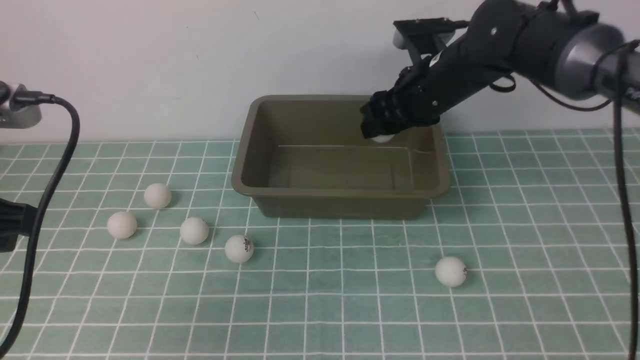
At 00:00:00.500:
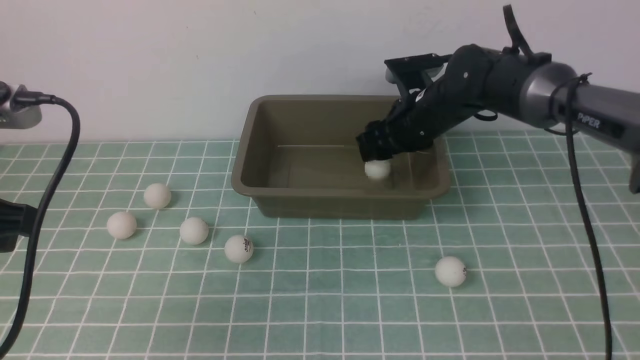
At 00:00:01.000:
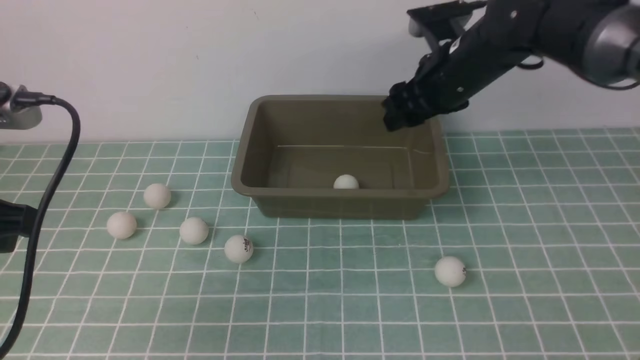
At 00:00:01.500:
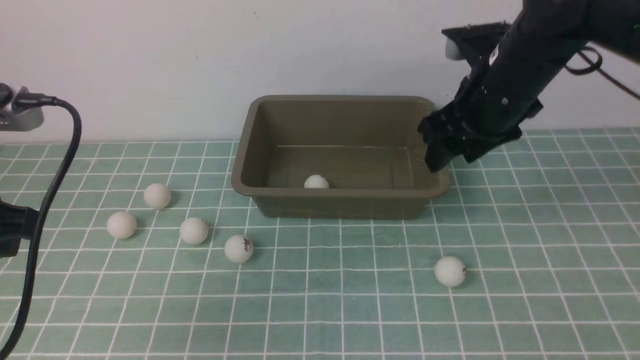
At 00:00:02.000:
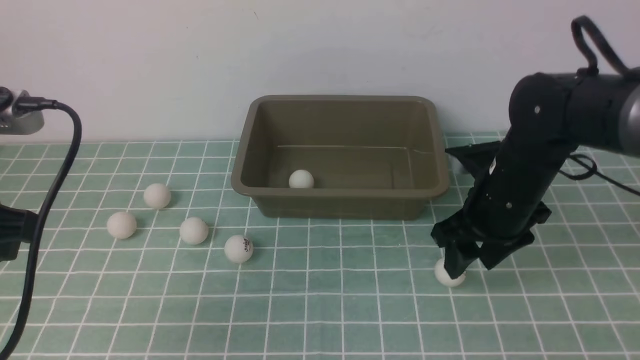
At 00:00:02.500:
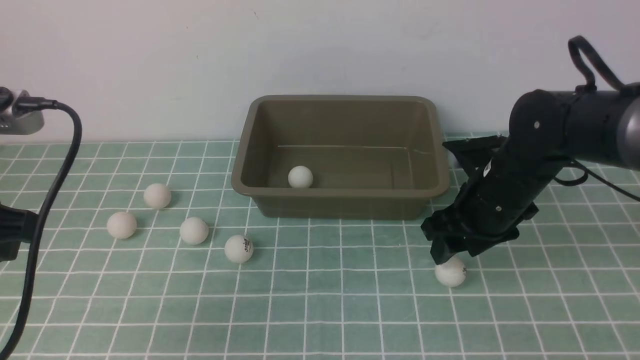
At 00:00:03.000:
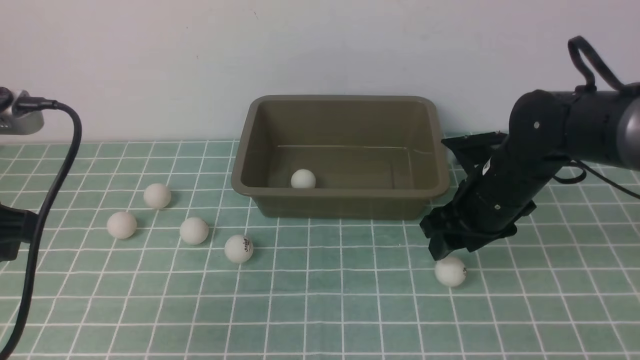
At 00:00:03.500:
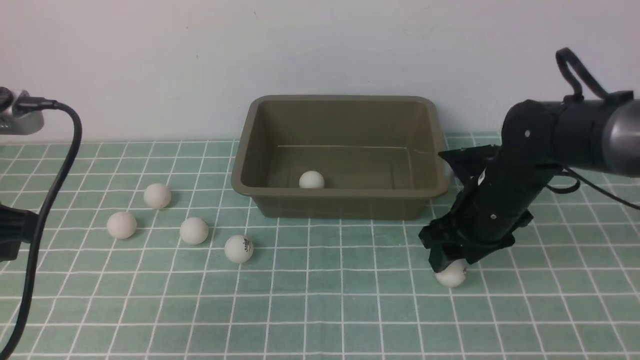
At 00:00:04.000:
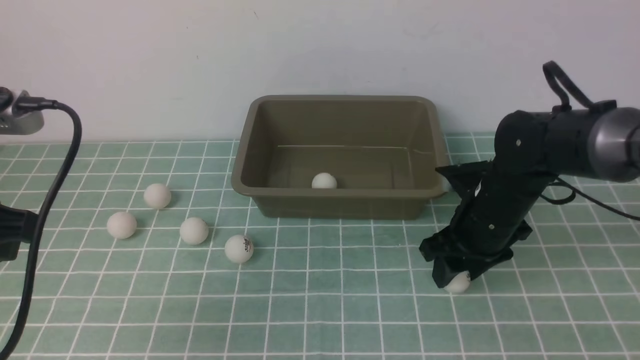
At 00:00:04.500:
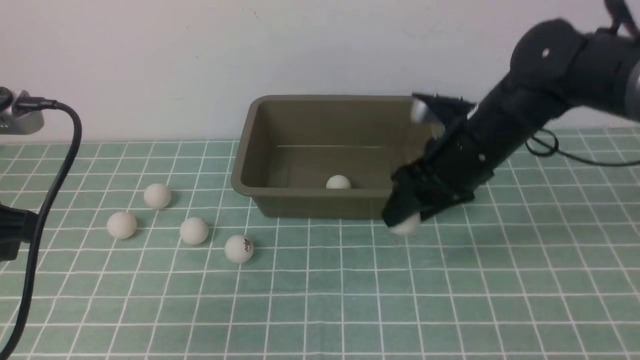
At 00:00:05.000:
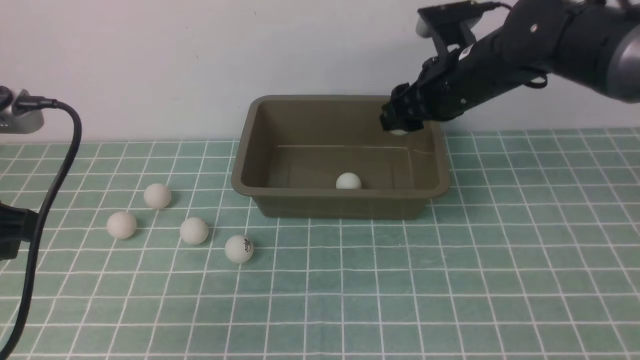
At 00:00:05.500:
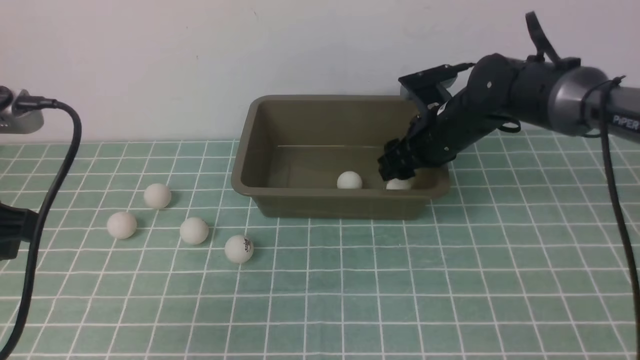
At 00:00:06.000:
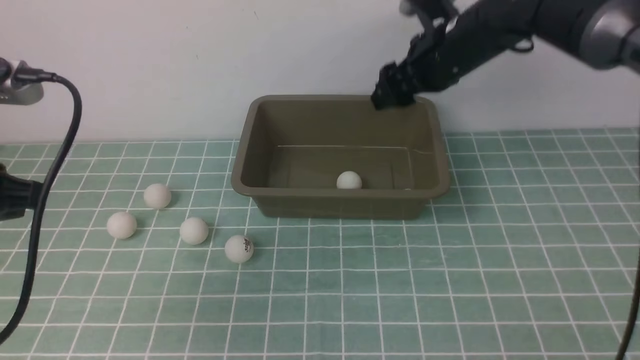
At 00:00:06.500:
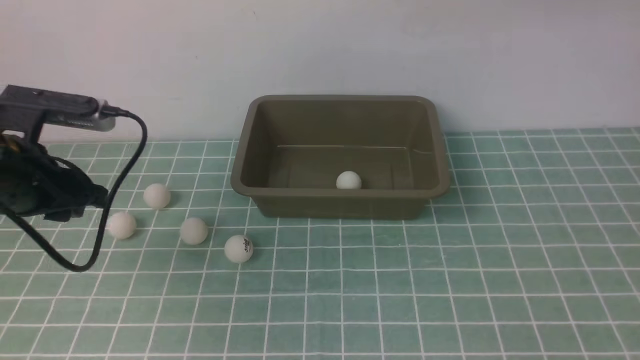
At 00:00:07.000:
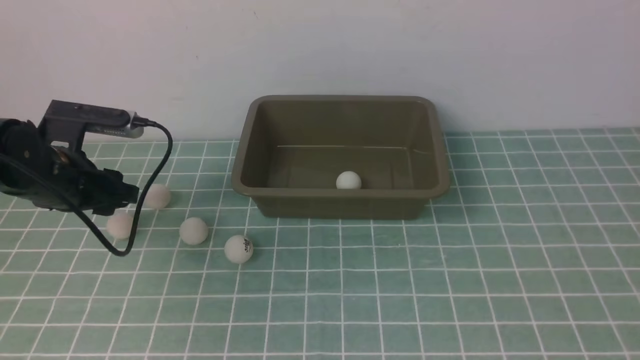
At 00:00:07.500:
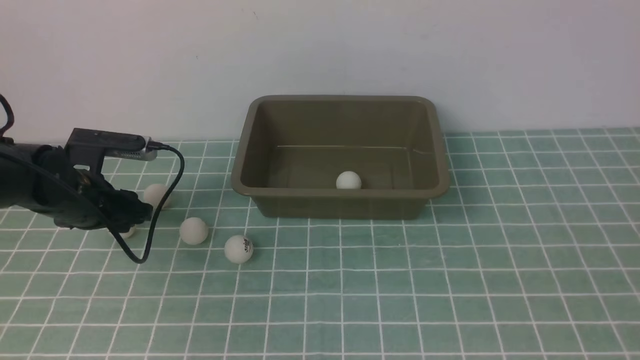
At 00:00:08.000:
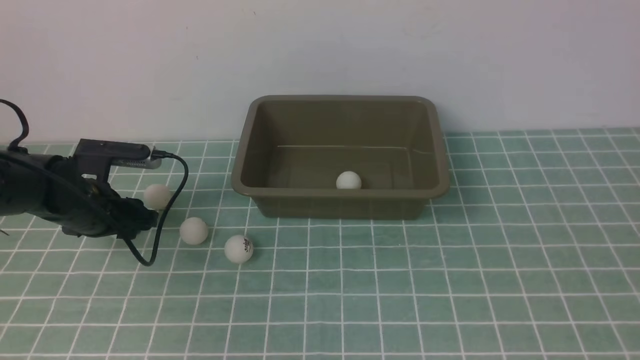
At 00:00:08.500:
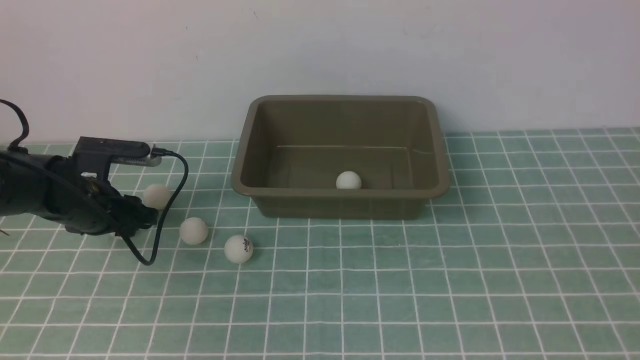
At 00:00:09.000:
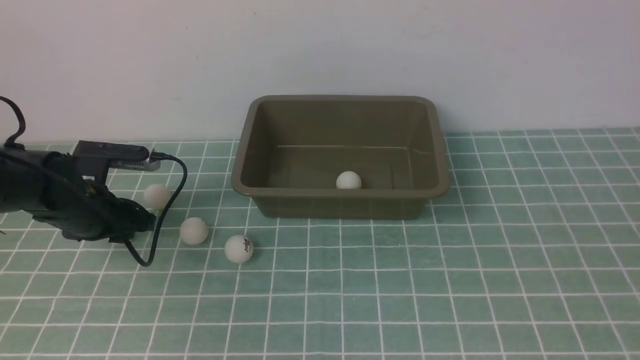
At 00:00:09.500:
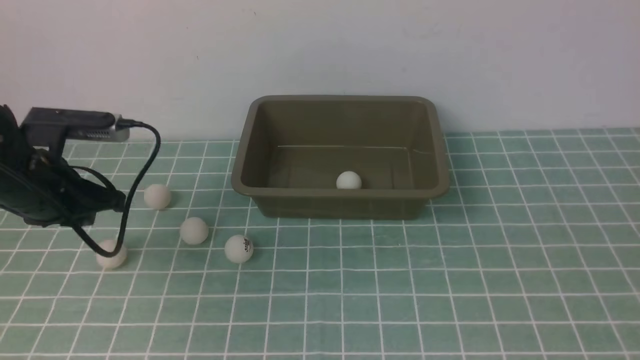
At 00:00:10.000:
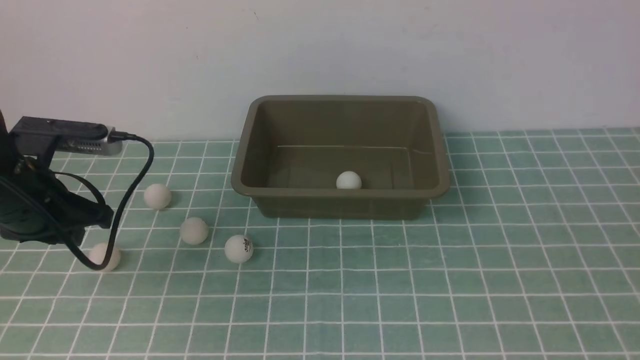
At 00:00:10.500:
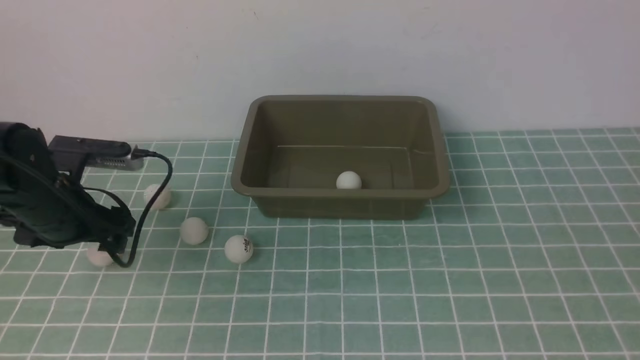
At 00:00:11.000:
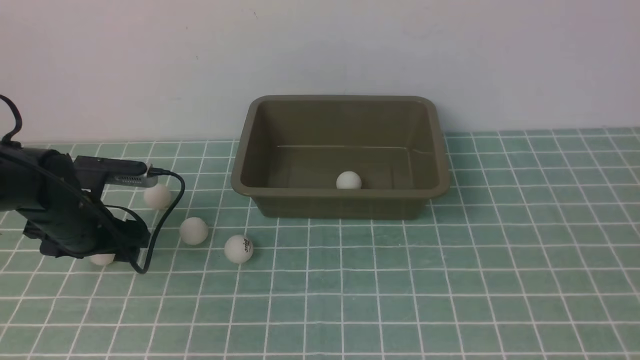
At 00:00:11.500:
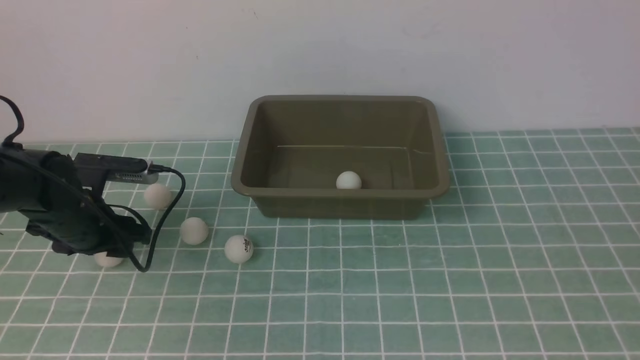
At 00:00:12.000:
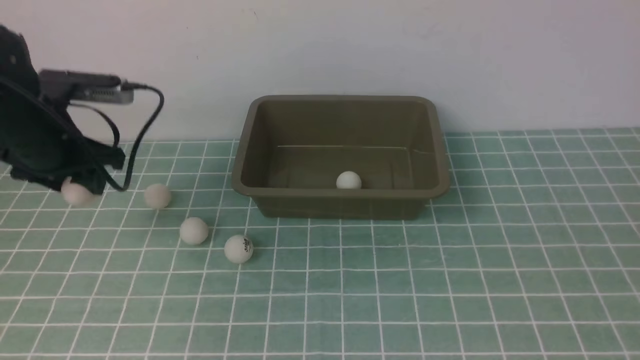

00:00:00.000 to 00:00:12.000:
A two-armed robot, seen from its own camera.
Step, 00:00:01.000 to 00:00:04.000: use the right arm to clamp the table tennis ball closest to it.
Step, 00:00:04.500 to 00:00:05.500: use the right arm to put the table tennis ball into the box.
Step, 00:00:06.000 to 00:00:11.500: use the left arm to clamp the table tennis ball closest to it.
00:00:00.000 to 00:00:02.000: The right gripper shifts roughly 15 cm backward, downward and to the right.
00:00:02.000 to 00:00:04.000: The grippers move only a little.
00:00:04.000 to 00:00:06.000: The right gripper moves up and down over approximately 25 cm, changing direction 2 times. The left gripper shifts some 10 cm forward and downward.
00:00:06.000 to 00:00:08.000: The left gripper shifts roughly 15 cm downward and forward. The right gripper travels backward by approximately 40 cm, and closes.
00:00:08.000 to 00:00:10.000: The left gripper moves upward and backward, some 10 cm, and closes, then opens again.
00:00:10.000 to 00:00:12.000: The left gripper travels to the right, forward and upward by about 15 cm.

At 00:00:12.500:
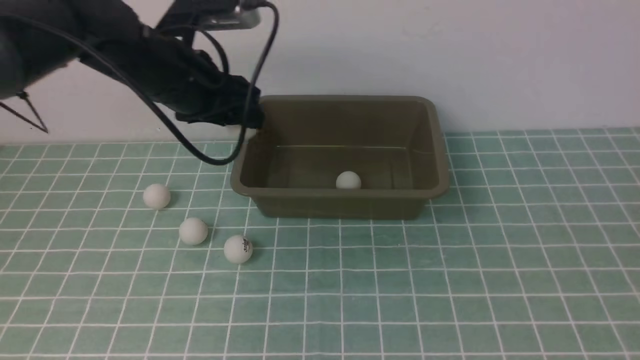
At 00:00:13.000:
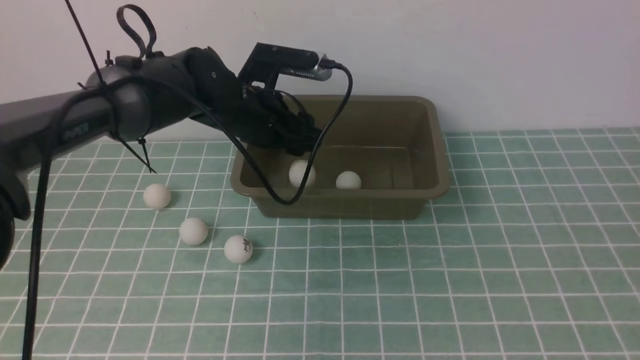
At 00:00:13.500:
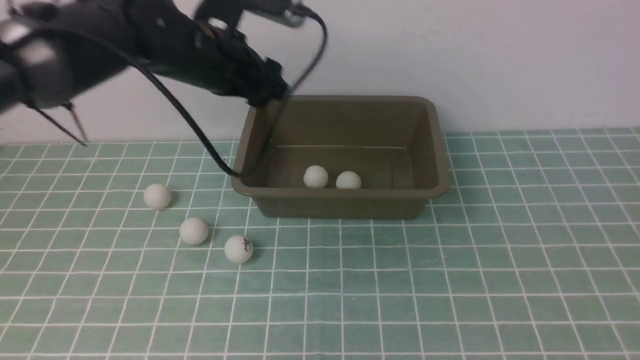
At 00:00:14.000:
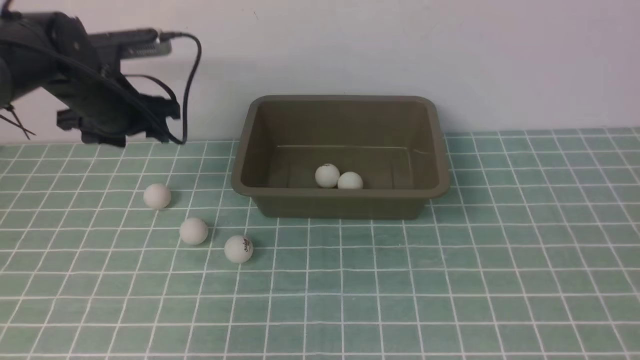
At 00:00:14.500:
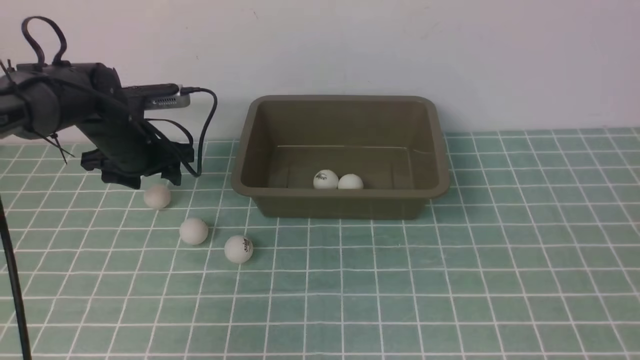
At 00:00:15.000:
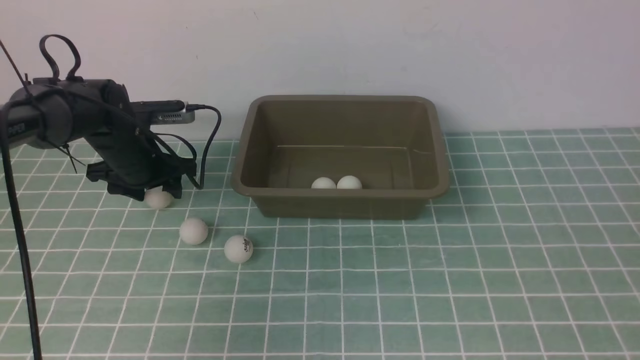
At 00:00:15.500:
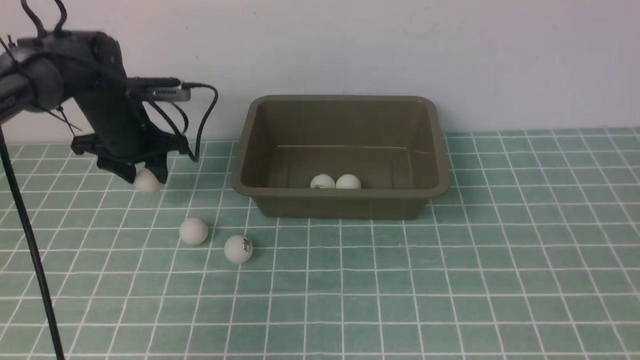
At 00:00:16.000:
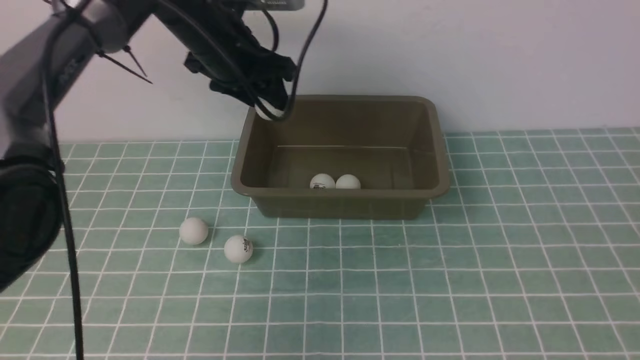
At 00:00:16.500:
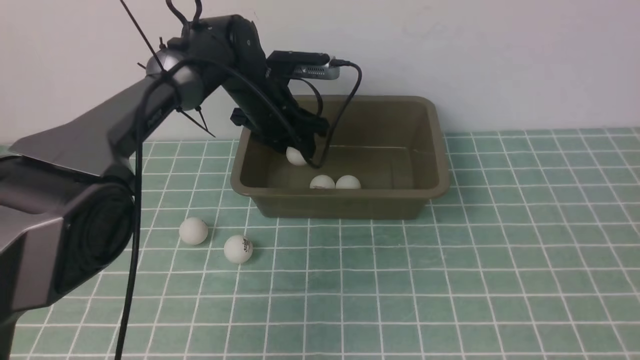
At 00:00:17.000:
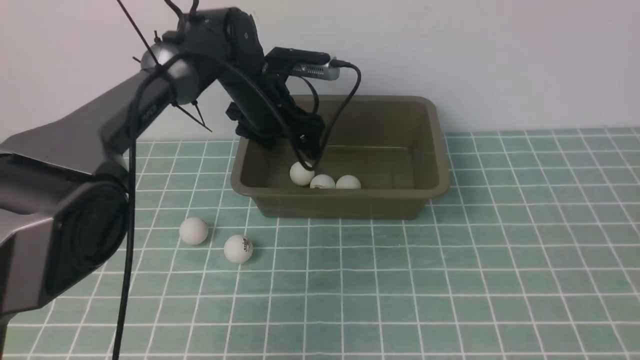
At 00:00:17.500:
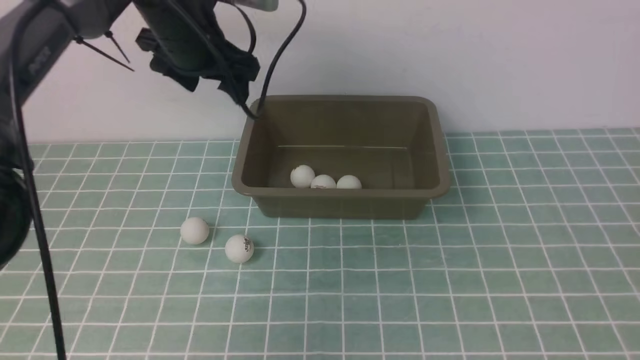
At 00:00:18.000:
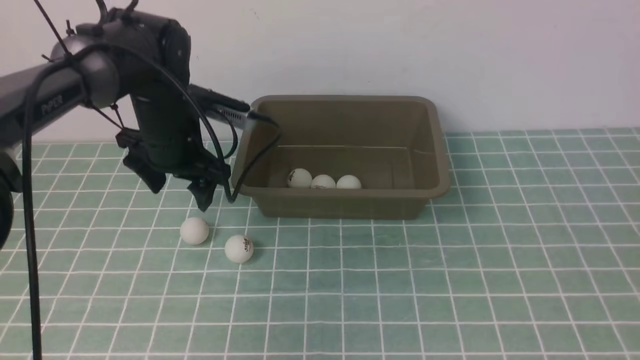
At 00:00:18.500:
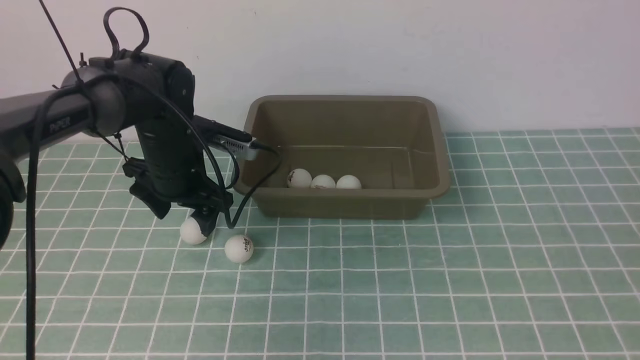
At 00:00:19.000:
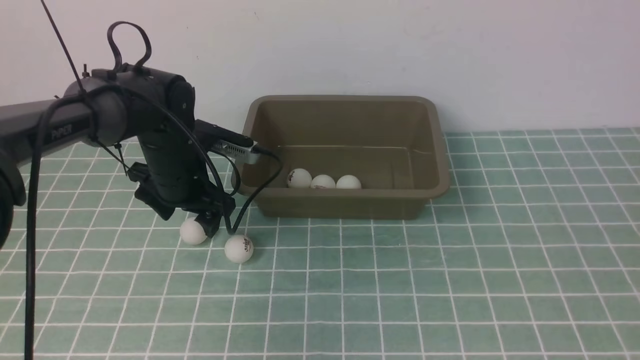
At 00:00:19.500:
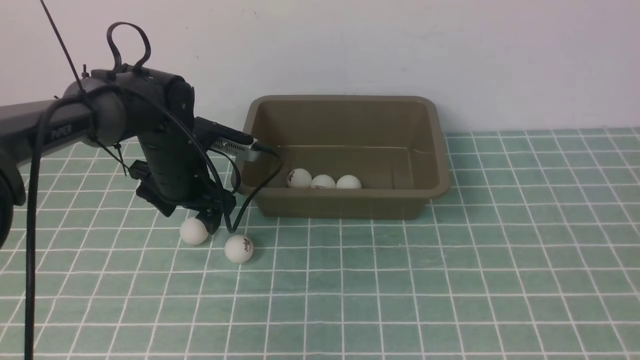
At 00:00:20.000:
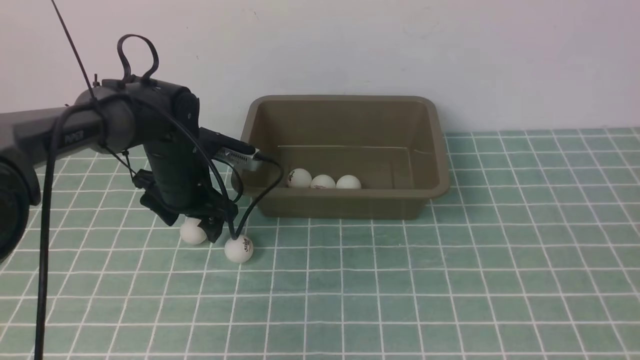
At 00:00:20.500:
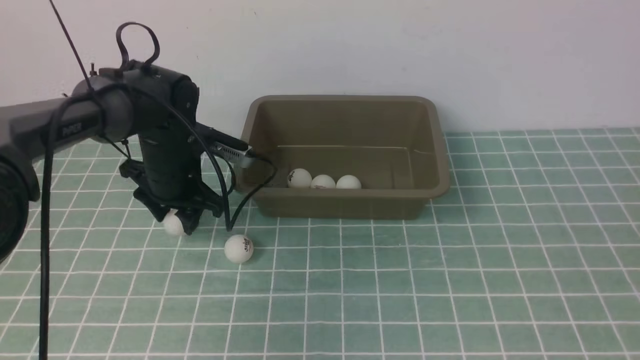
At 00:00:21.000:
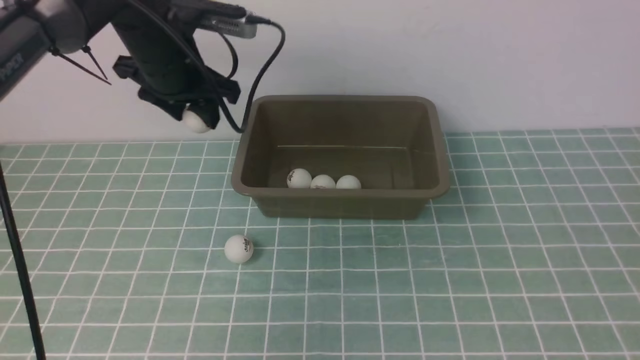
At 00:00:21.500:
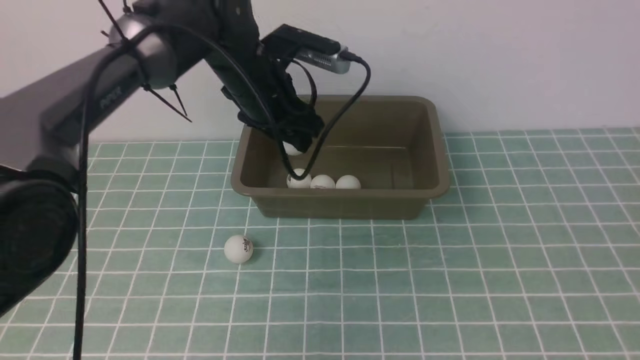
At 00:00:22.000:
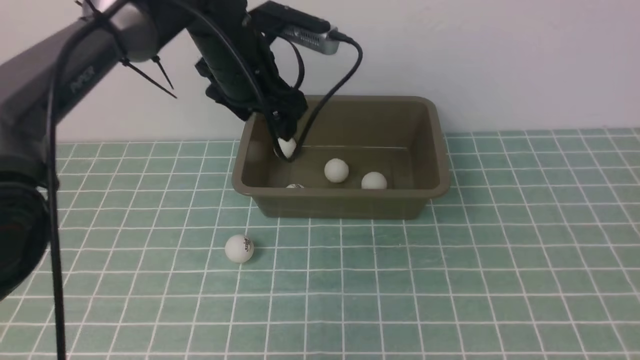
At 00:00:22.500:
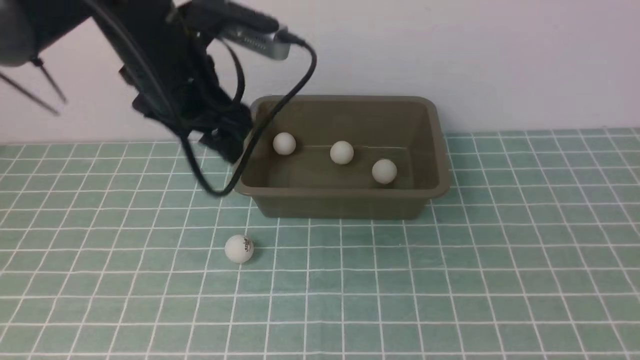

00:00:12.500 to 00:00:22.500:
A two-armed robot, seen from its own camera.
Step, 00:00:13.500 to 00:00:15.500: use the left arm to clamp the table tennis ball closest to it.
Step, 00:00:16.000 to 00:00:16.500: use the left arm to put the table tennis ball into the box.
Step, 00:00:17.000 to 00:00:20.500: use the left arm to clamp the table tennis ball closest to it.
Step, 00:00:21.000 to 00:00:21.500: use the left arm to put the table tennis ball into the box.
00:00:12.500 to 00:00:14.500: The left gripper moves to the left and downward, some 15 cm.
00:00:14.500 to 00:00:16.500: The left gripper heads upward and to the right, covering approximately 20 cm, and opens up.
00:00:16.500 to 00:00:18.500: The left gripper is displaced downward by about 15 cm.
00:00:18.500 to 00:00:20.500: The left gripper goes approximately 15 cm upward and to the right.
00:00:20.500 to 00:00:22.500: The left gripper heads backward and downward, covering approximately 15 cm.
